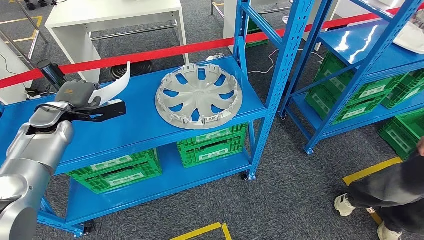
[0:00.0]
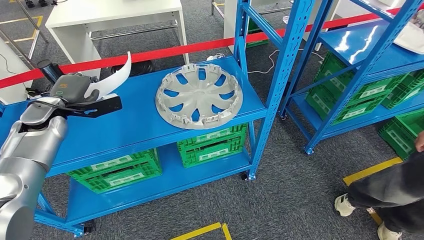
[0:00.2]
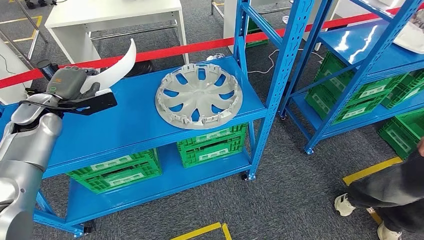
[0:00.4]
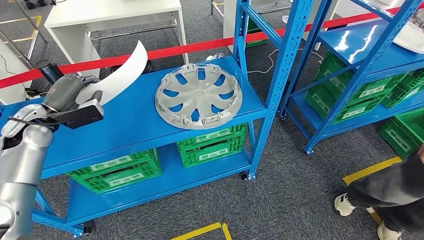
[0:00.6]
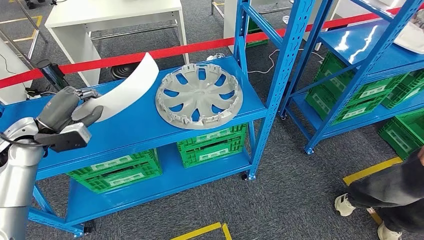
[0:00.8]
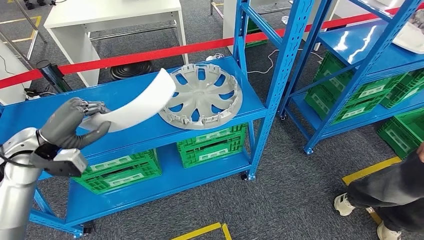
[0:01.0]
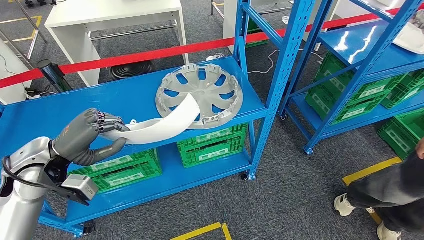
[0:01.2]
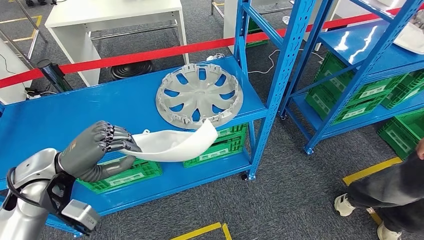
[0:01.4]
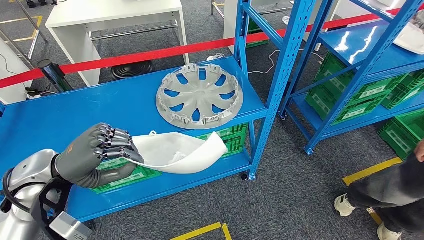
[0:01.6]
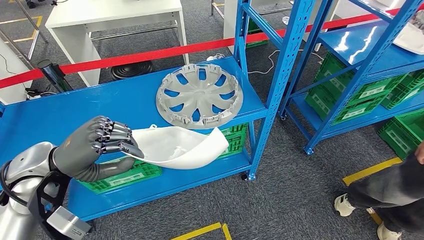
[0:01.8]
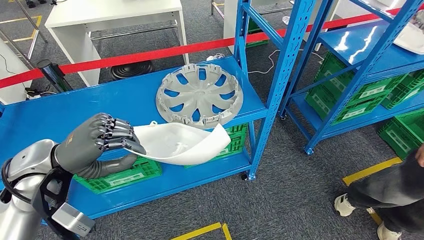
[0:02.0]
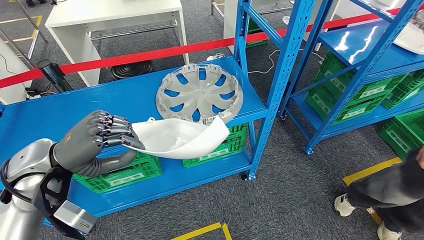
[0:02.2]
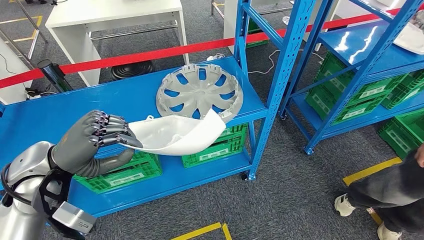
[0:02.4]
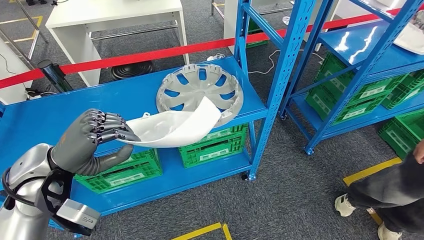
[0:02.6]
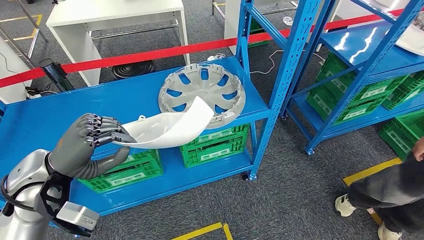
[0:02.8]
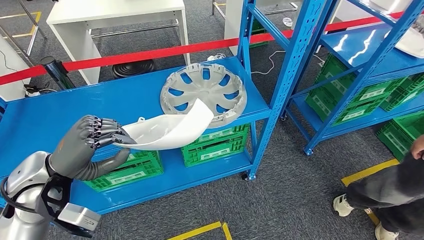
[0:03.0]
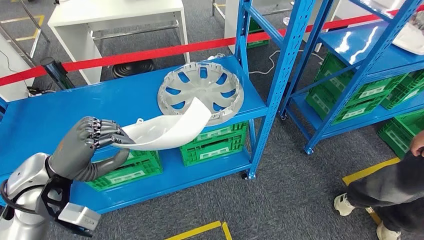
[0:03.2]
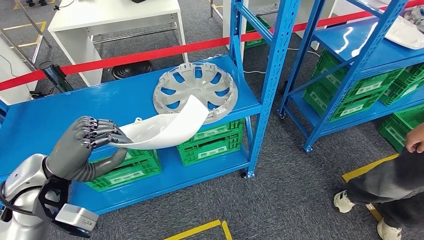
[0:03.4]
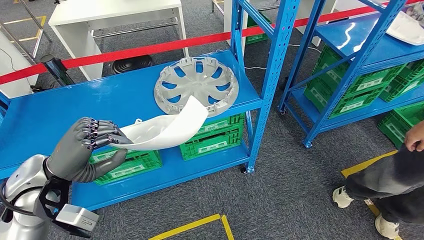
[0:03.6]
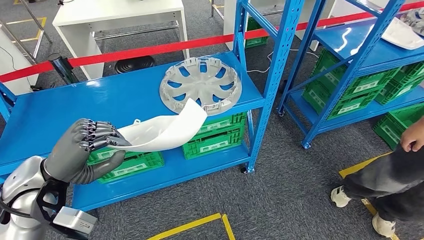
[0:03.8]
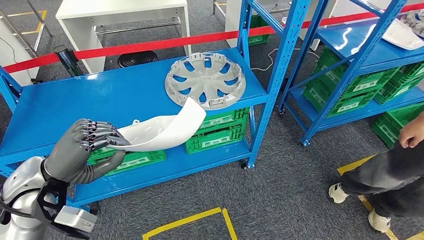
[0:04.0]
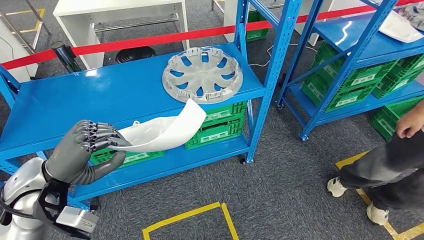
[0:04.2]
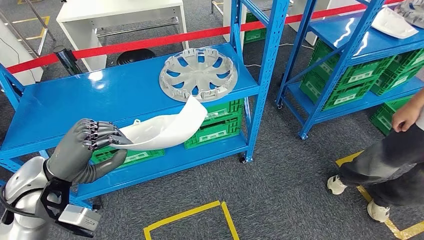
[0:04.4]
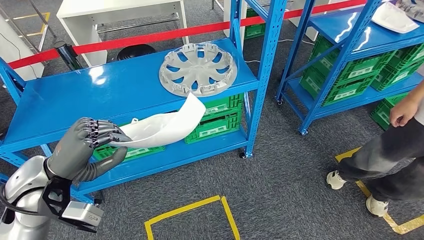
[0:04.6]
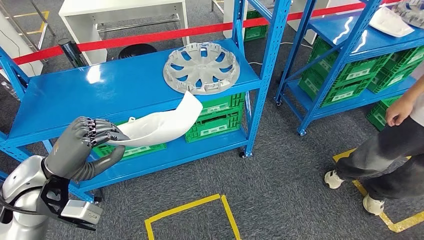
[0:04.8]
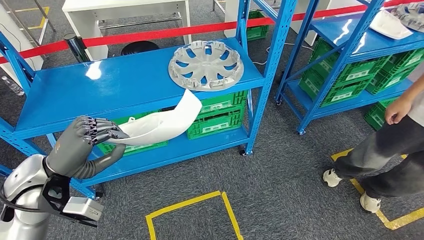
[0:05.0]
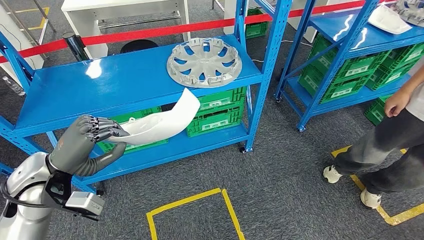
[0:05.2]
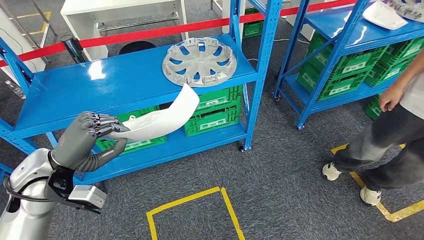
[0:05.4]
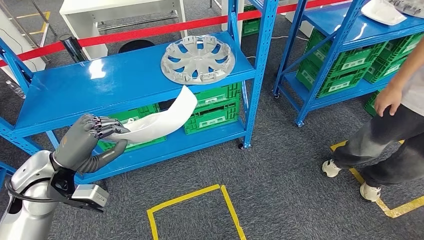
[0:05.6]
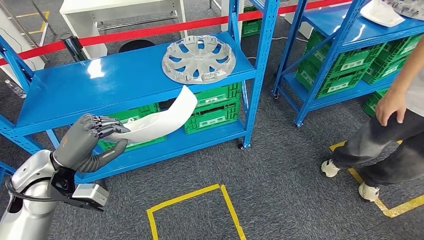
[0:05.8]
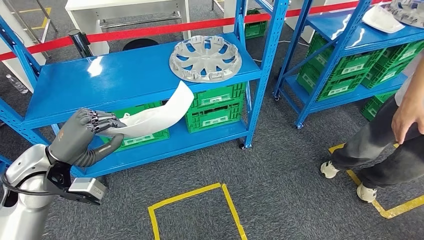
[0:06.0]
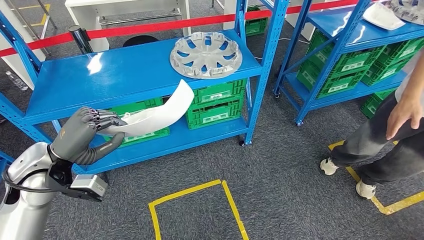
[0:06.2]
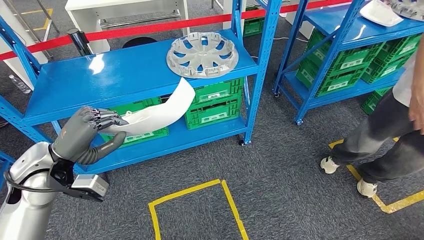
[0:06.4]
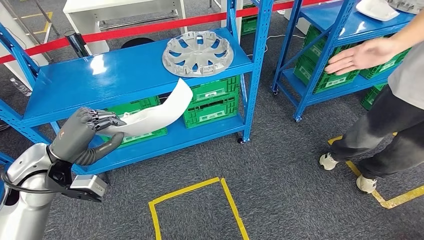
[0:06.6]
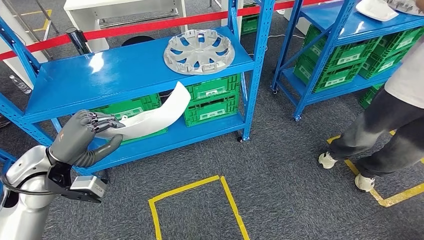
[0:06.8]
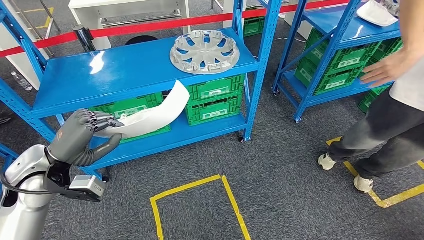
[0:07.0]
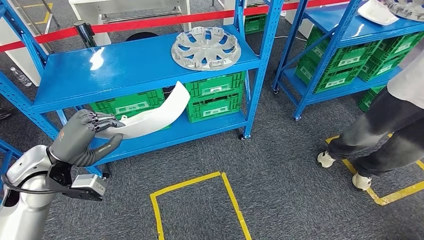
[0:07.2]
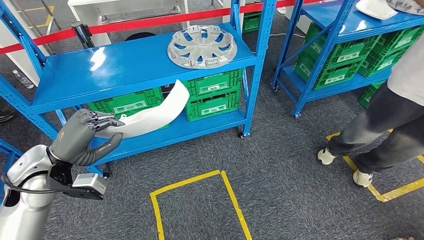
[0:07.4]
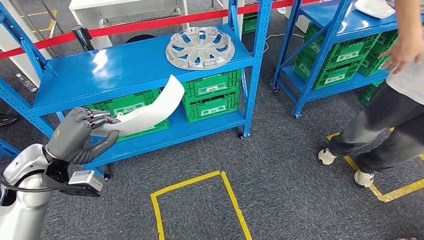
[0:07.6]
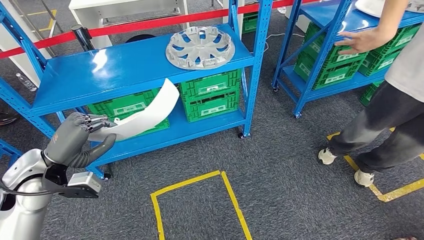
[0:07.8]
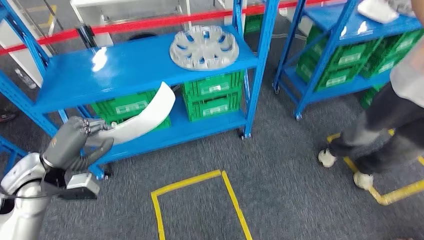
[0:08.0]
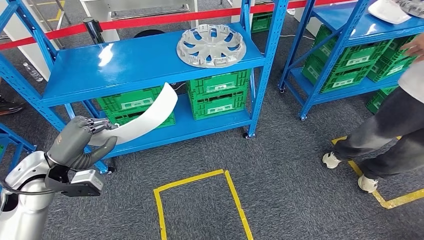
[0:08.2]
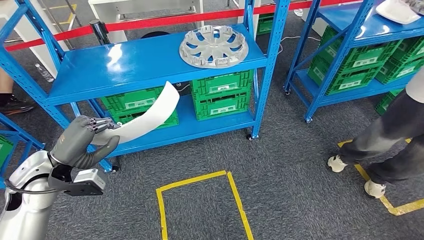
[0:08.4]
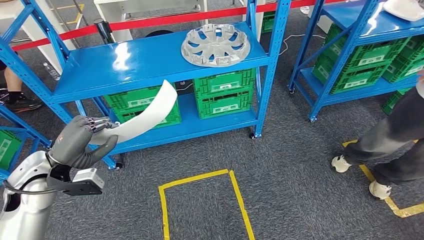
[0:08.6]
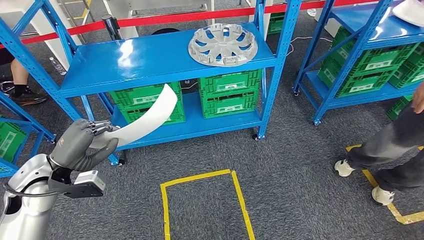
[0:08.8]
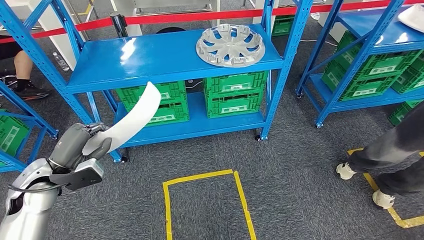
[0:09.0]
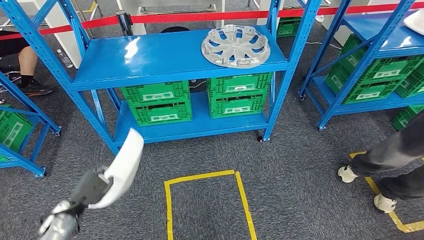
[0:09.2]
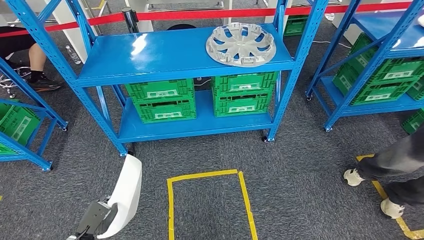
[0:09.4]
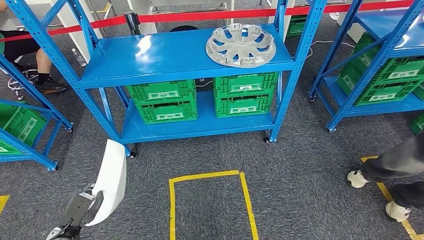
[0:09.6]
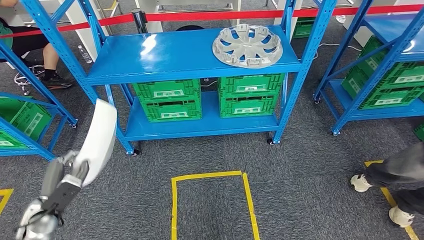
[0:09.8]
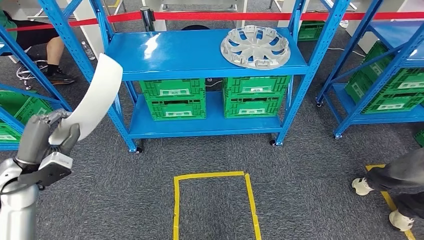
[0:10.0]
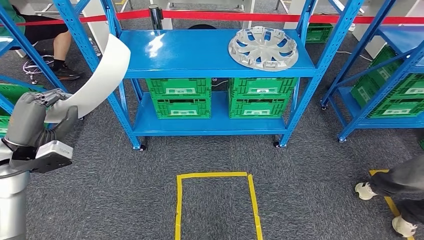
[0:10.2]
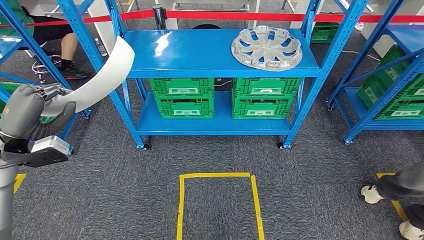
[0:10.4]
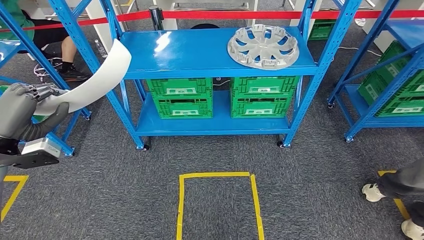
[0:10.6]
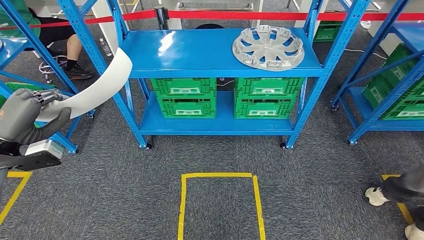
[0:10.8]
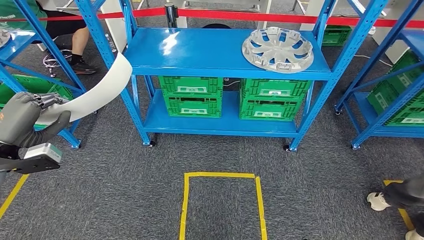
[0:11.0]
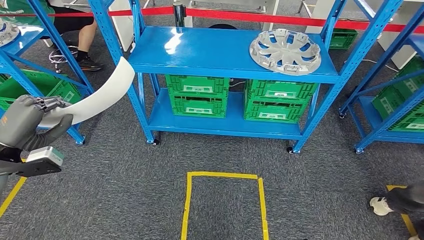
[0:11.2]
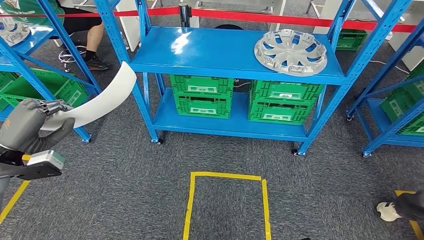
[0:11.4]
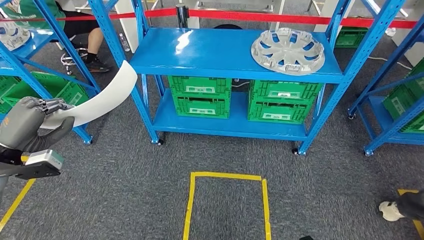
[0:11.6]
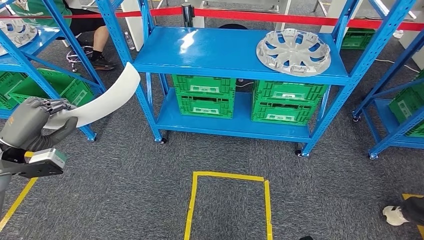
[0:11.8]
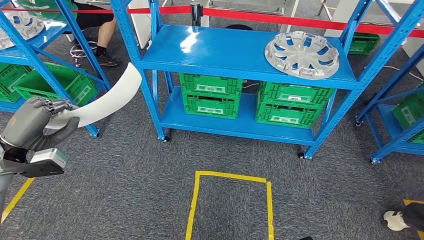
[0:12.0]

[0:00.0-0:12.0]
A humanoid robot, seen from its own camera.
0:00.0 to 0:01.6: The left hand is displaced backward and to the right by roughly 20 cm.

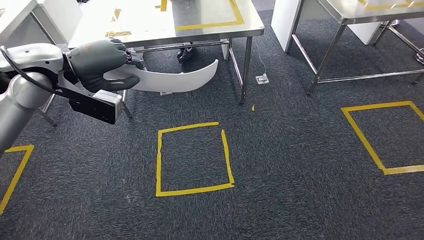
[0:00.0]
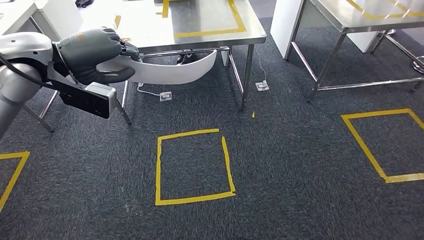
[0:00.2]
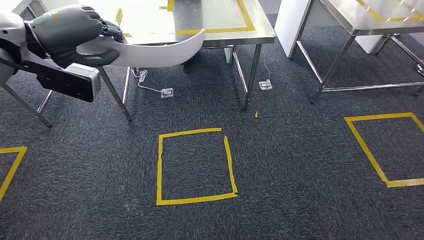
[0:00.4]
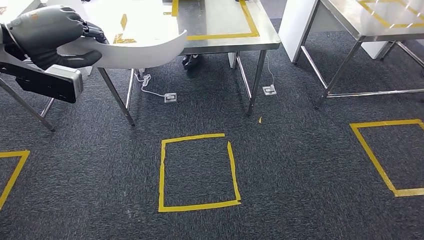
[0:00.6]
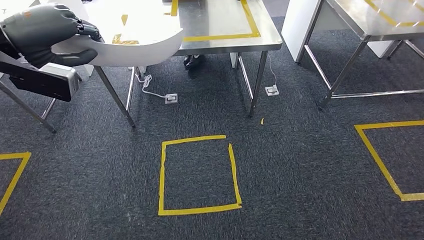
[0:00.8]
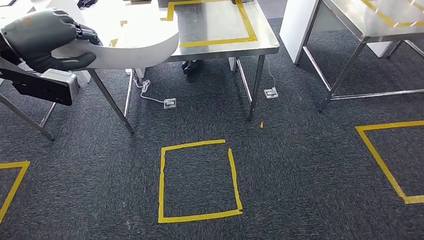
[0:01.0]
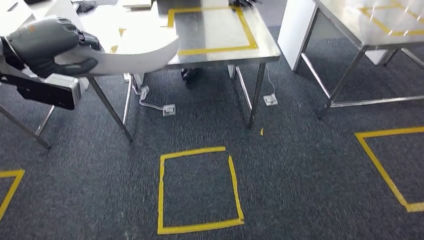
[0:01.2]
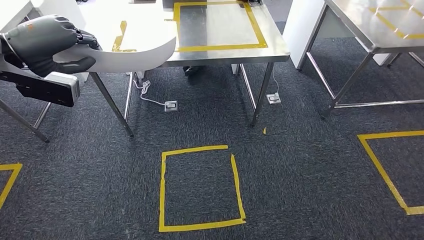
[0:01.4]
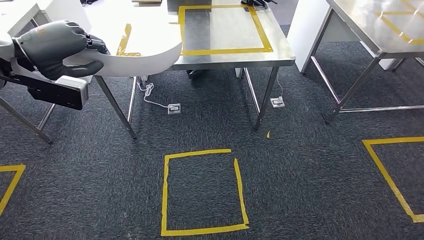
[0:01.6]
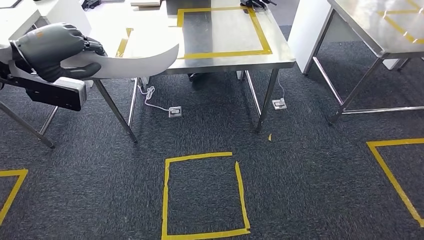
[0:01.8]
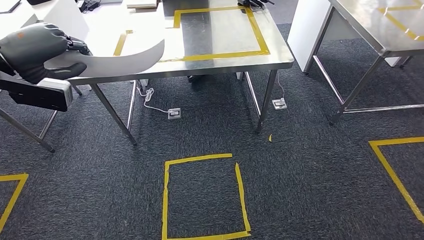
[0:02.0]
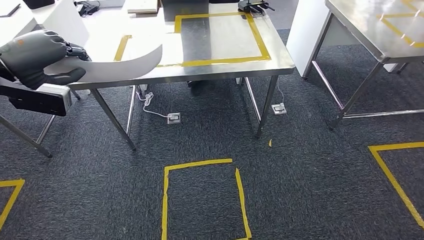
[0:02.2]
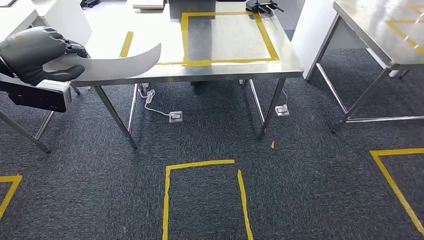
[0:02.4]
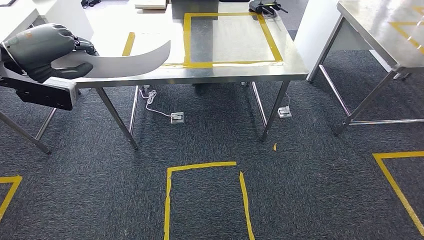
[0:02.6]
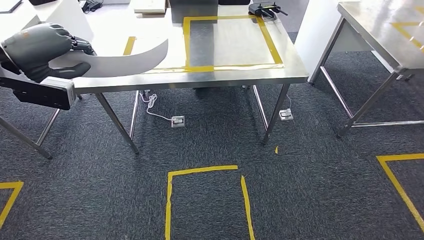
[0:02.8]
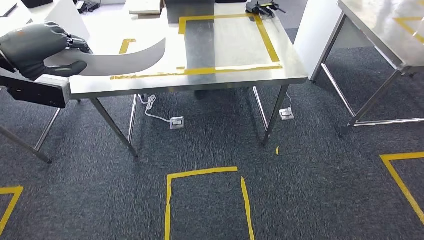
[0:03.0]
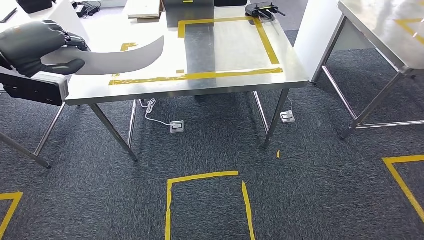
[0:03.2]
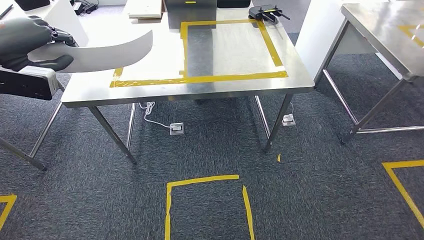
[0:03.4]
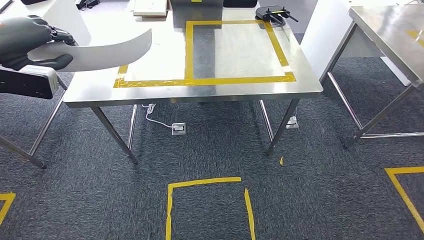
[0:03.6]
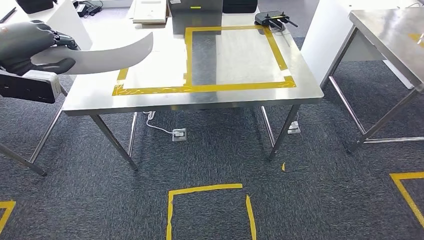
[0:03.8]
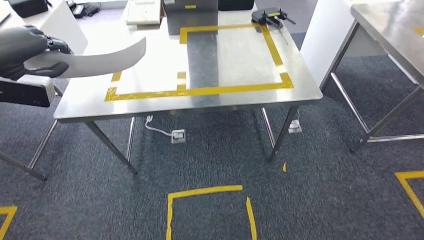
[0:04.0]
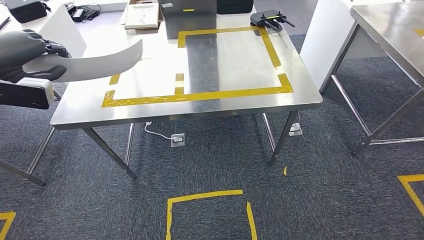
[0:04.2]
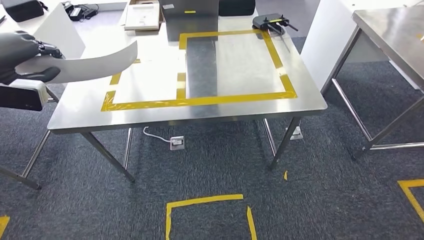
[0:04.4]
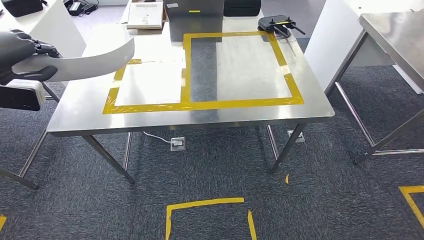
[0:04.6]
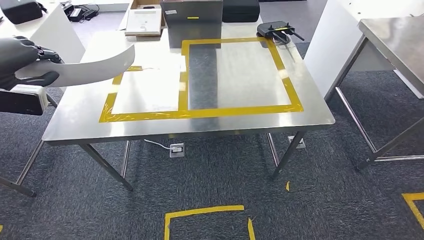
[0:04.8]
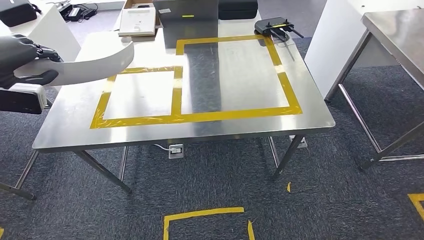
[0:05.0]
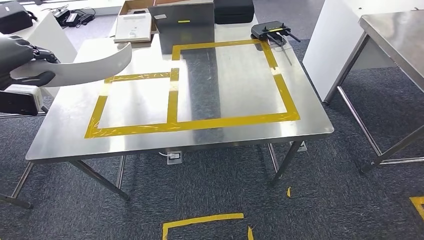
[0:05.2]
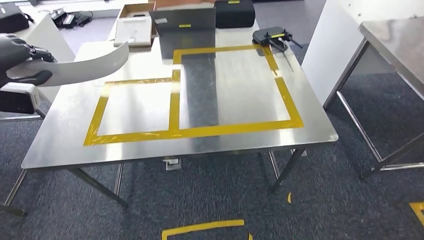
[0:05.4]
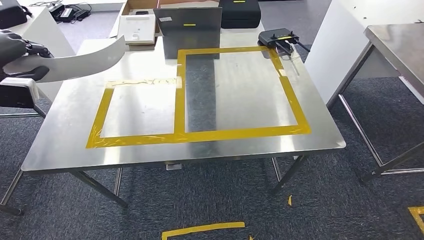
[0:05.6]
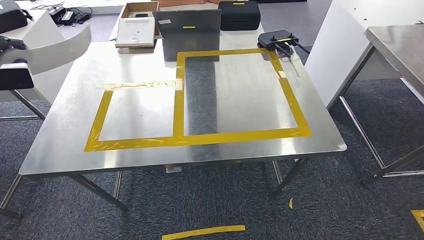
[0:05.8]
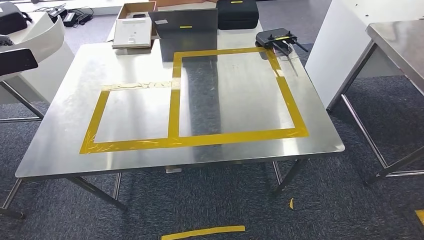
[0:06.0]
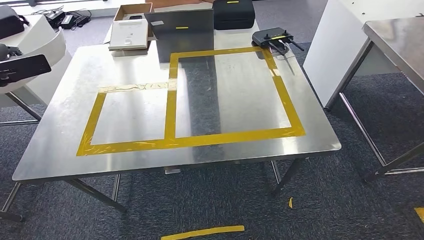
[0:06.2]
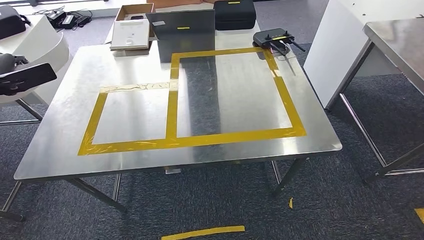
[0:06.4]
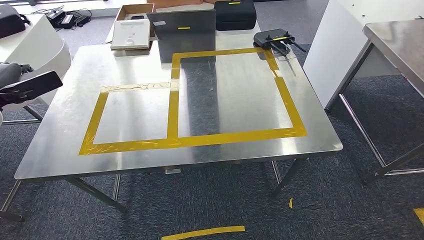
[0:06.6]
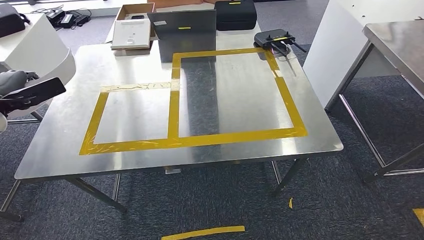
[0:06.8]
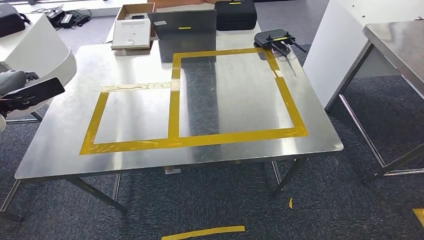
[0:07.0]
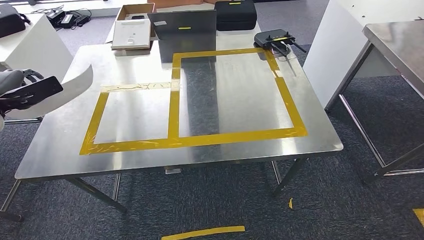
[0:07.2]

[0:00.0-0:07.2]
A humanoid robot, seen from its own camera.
Step, 0:00.0 to 0:05.2: Move the small parts to the workbench.
0:05.8 to 0:07.2: The left hand goes some 15 cm downward.
